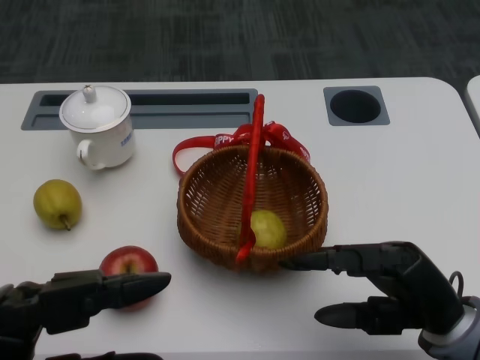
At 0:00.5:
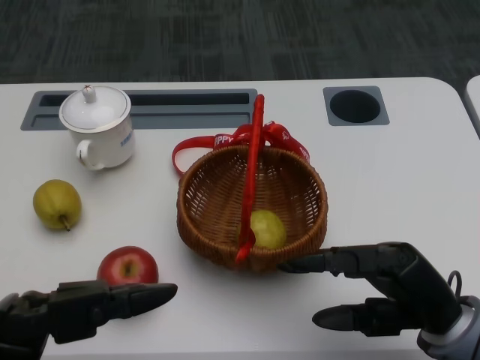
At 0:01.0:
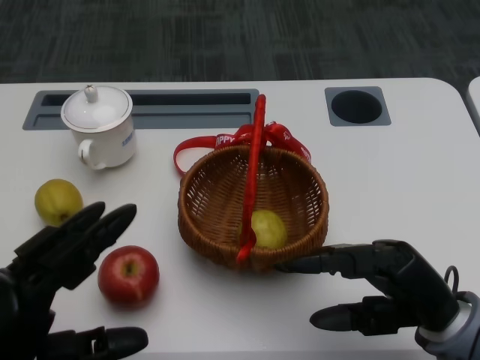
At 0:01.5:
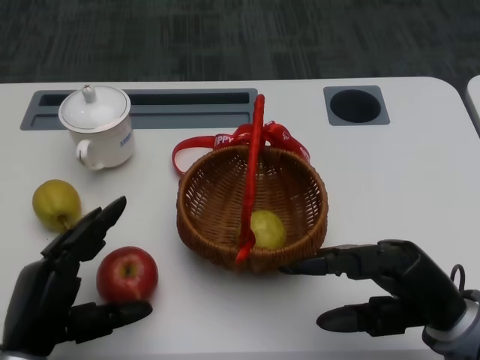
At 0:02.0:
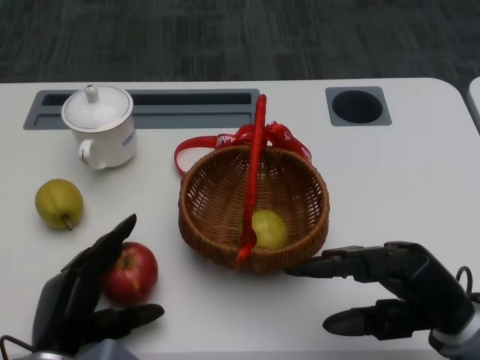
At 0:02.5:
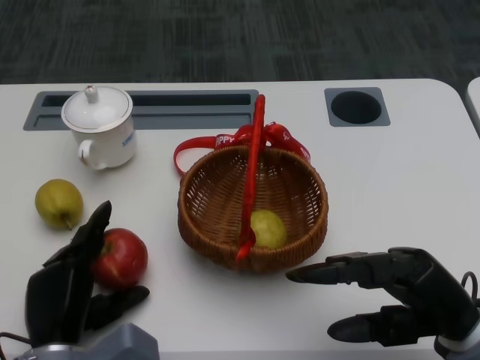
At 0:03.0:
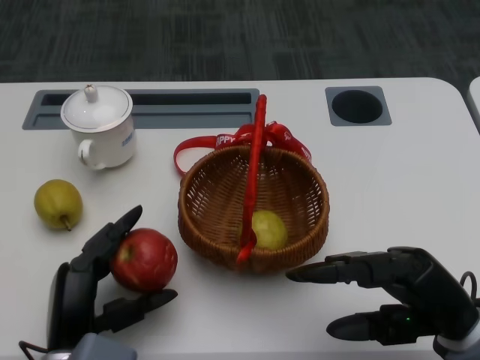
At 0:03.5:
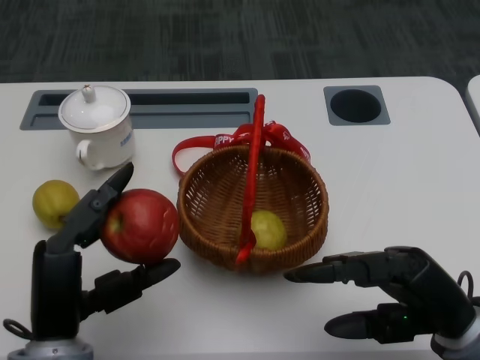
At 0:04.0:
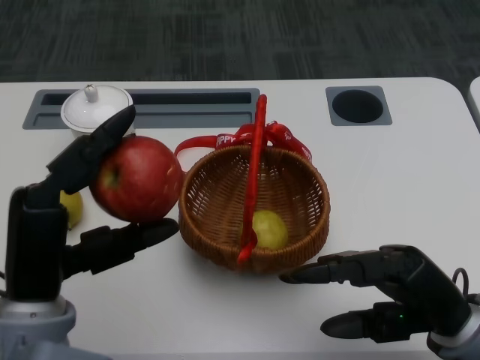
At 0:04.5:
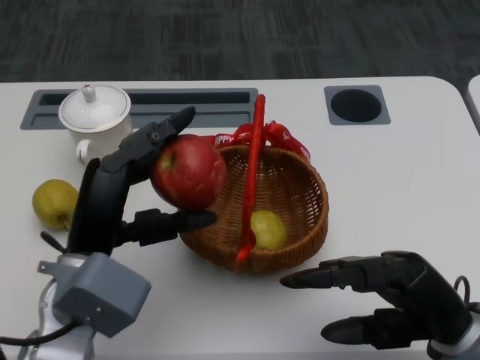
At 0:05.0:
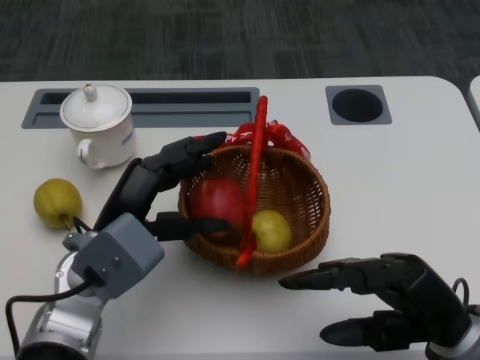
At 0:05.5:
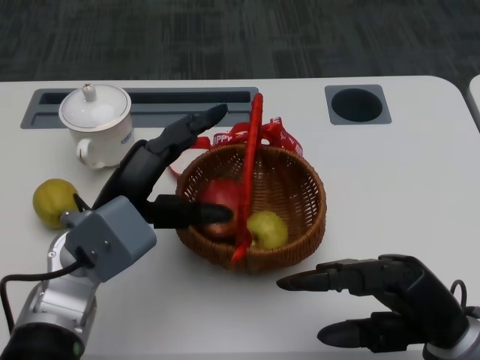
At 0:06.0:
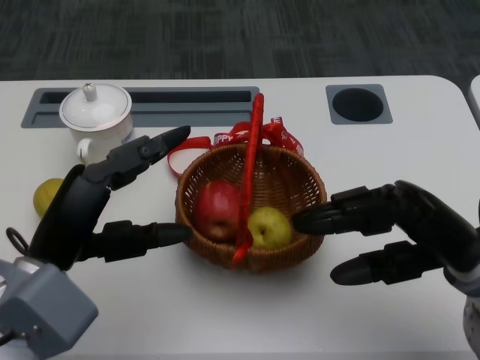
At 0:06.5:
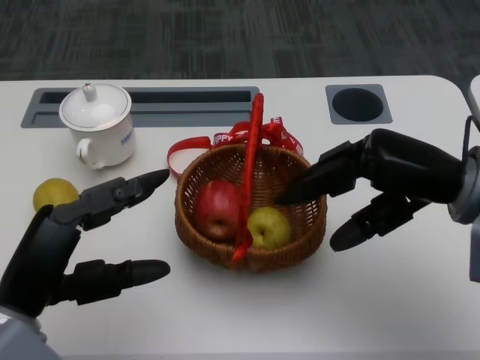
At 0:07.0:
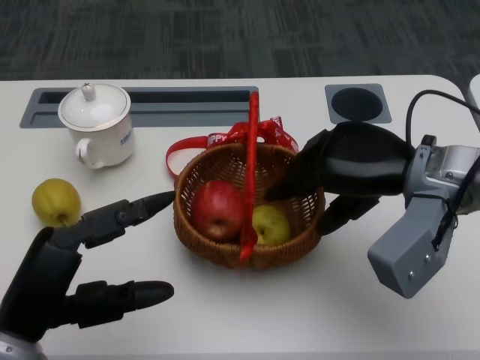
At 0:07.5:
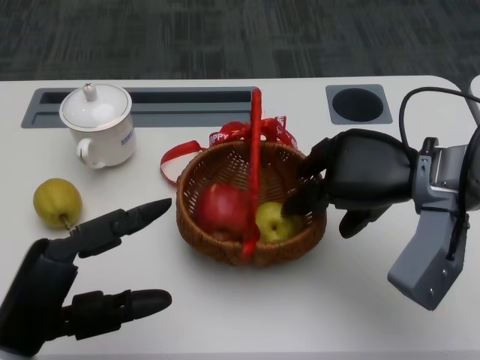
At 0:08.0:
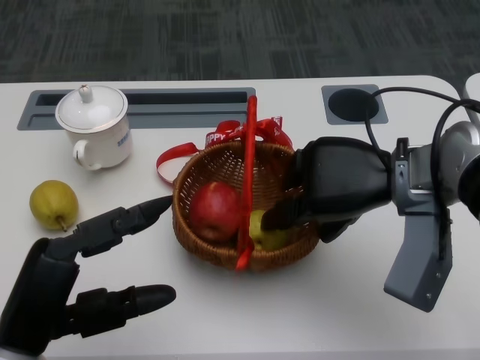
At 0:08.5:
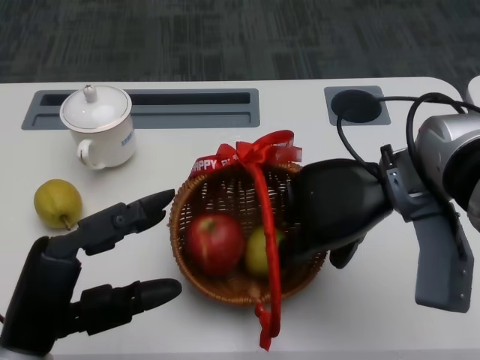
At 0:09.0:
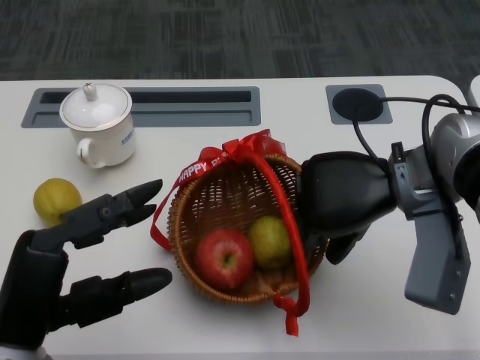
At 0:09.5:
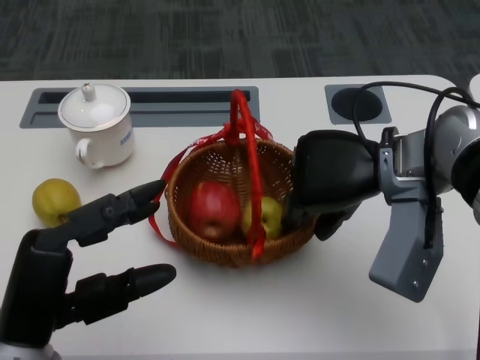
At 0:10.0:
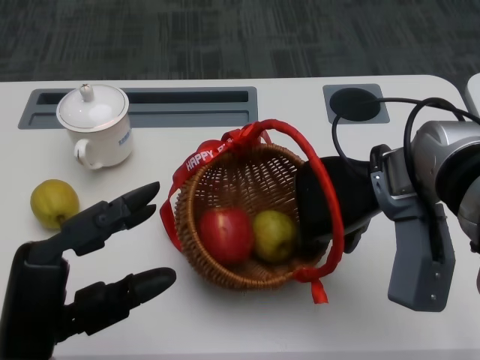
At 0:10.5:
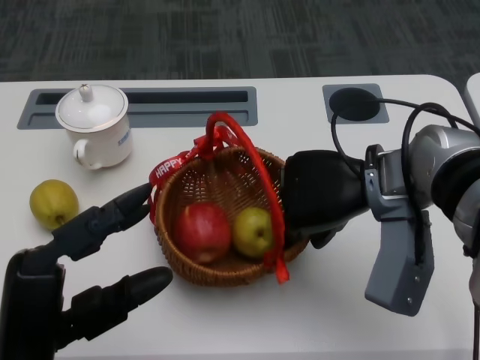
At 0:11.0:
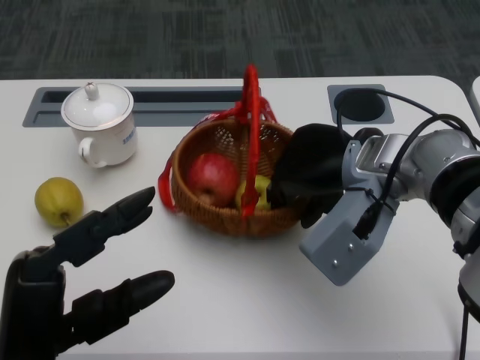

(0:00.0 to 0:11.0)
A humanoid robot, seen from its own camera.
Step, 0:00.5 - 0:02.0: Grasp the apple with the left gripper.
Step, 0:02.5 - 0:04.0: Place the apple into the basket with the left gripper.
Step, 0:04.5 - 0:08.5: Grasp the basket with the right gripper.
Step, 0:09.0 - 0:10.0: Move the basket to the front of the table with the right gripper.
0:02.0 - 0:03.5: The left hand moves upward, some 5 cm.
0:03.5 - 0:05.5: The left hand heads forward, covering roughly 10 cm.
0:05.5 - 0:07.5: The left hand is displaced backward and to the left by approximately 15 cm. The right hand heads forward and upward, covering approximately 15 cm.

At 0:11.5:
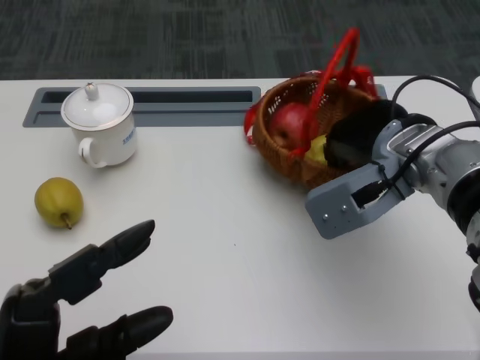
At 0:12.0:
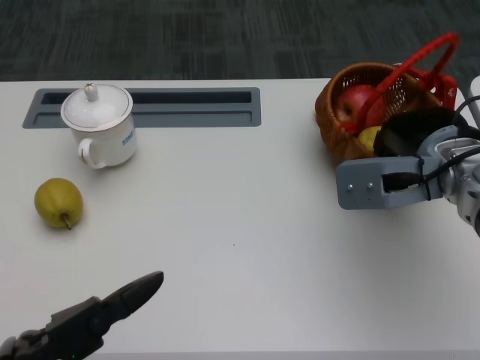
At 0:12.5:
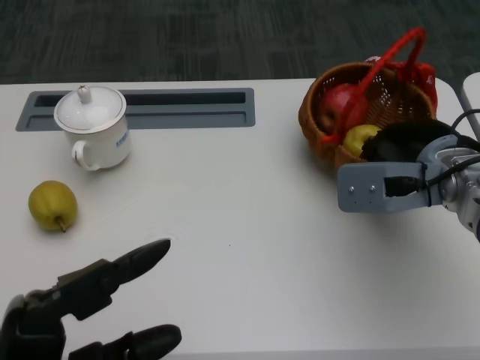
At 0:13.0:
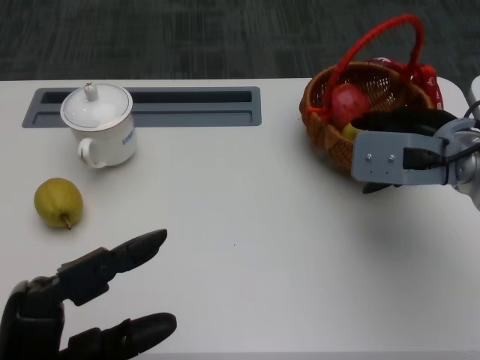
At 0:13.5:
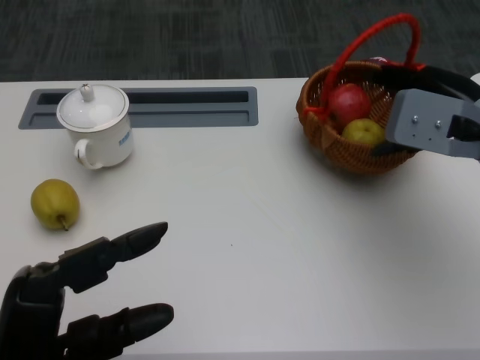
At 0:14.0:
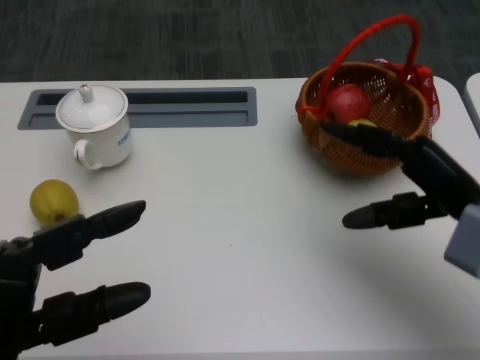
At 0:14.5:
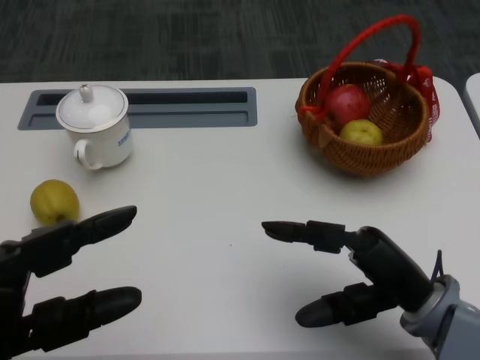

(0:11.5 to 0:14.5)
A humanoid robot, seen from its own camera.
0:13.0 - 0:14.5: The right hand heads backward and downward, covering about 15 cm.
